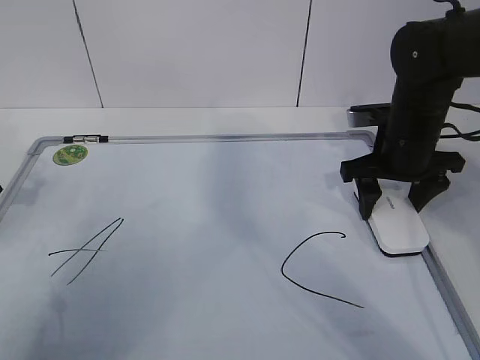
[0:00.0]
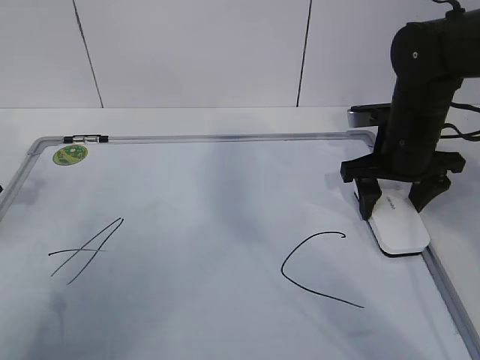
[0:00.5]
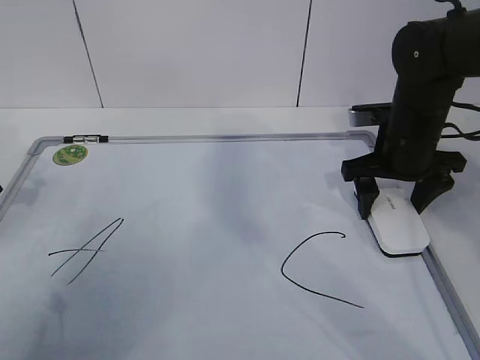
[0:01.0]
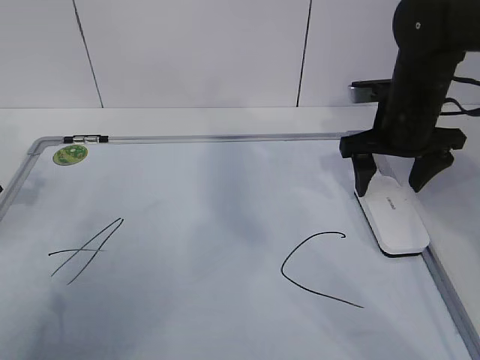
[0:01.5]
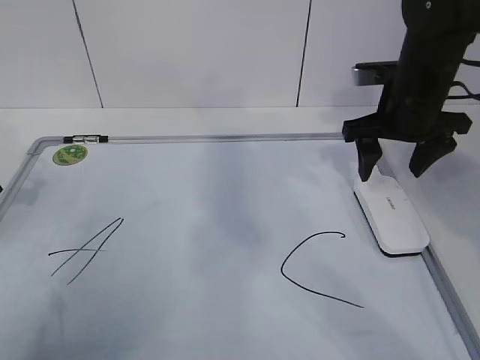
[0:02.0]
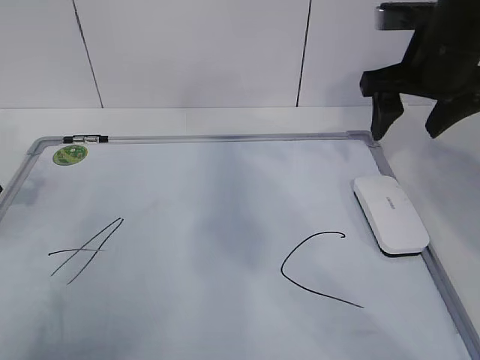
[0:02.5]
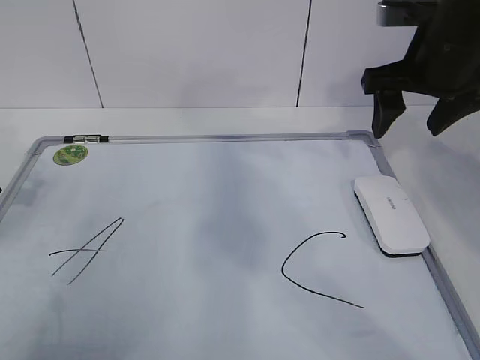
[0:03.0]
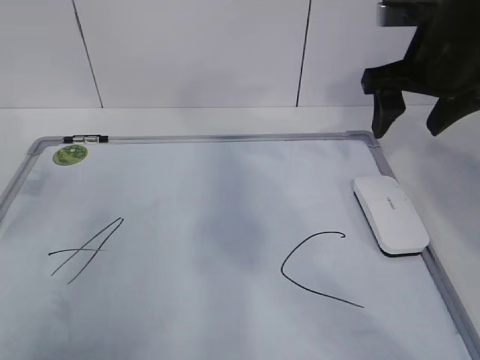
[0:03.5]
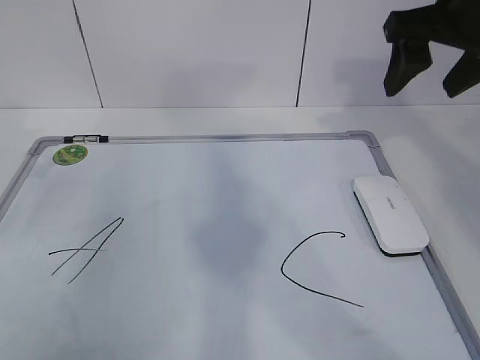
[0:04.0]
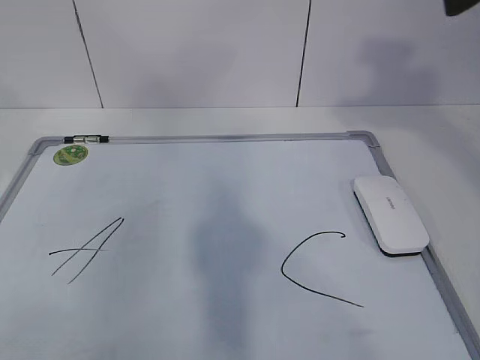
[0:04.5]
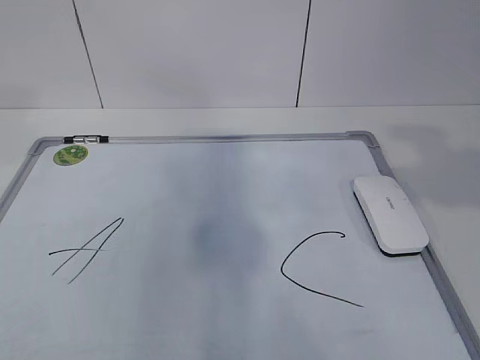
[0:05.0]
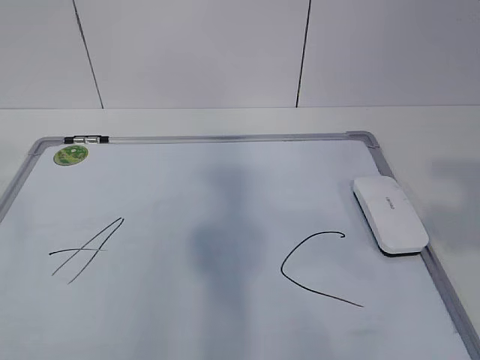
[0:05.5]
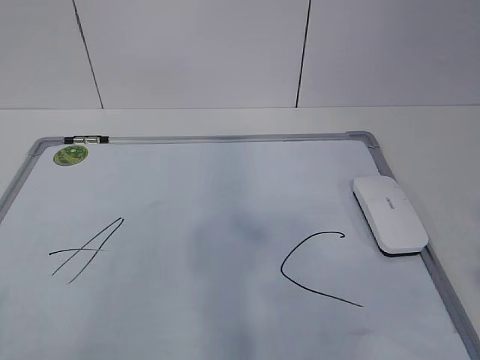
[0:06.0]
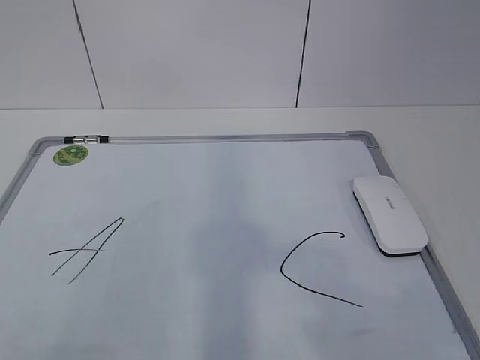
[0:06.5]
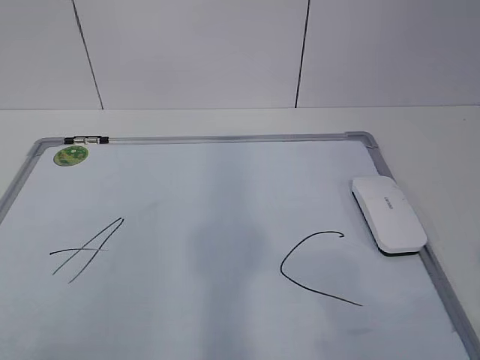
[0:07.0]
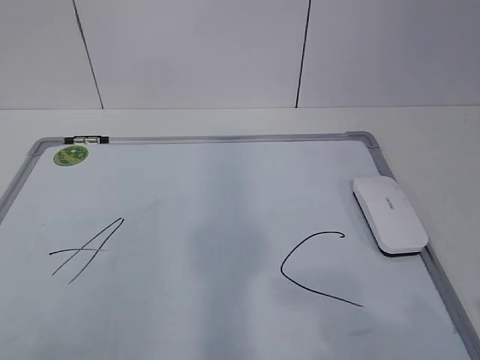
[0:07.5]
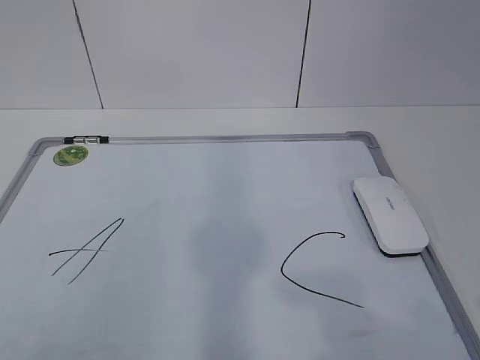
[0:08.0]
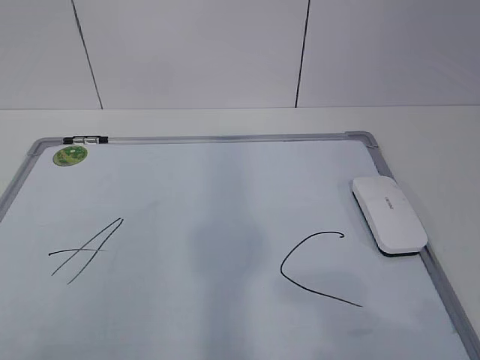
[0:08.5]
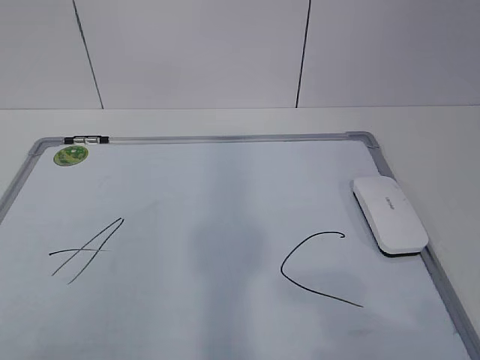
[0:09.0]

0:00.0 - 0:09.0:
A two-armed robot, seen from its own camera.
Task of the whole recording: pick up the eraser on the blackboard and erase the letter "B".
0:00.0 - 0:02.0: The right gripper opens its fingers.
0:02.0 - 0:04.5: The left gripper is displaced upward by some 15 cm, and opens its fingers; the right gripper moves upward and backward, some 25 cm.
0:04.5 - 0:07.0: The right gripper shifts some 30 cm backward and downward.

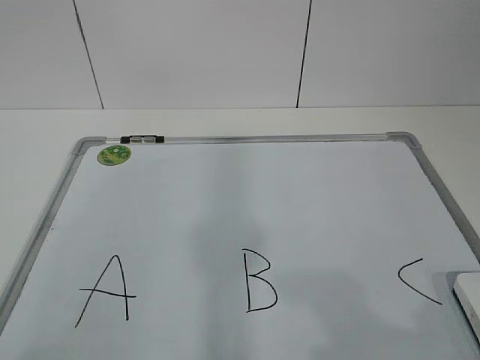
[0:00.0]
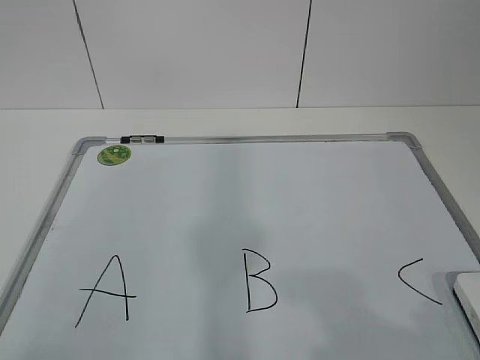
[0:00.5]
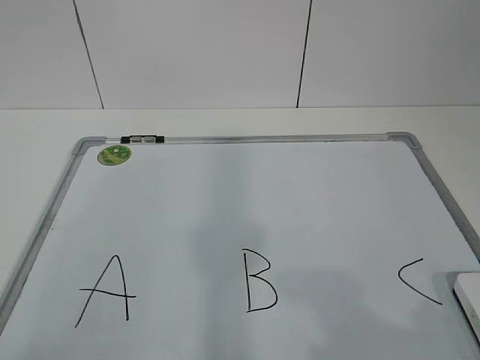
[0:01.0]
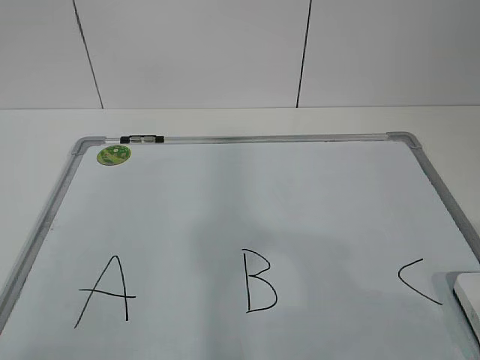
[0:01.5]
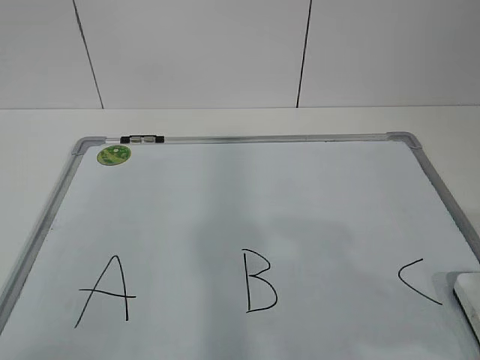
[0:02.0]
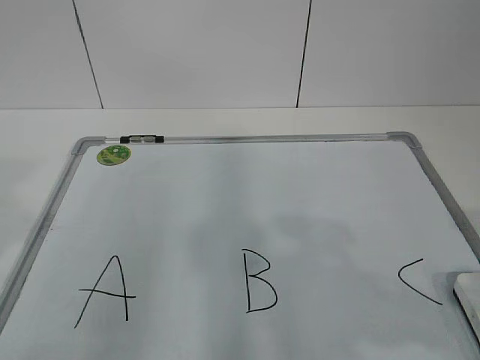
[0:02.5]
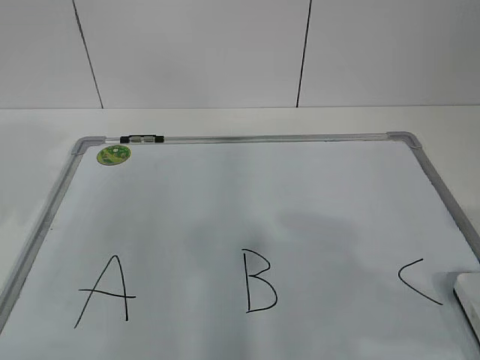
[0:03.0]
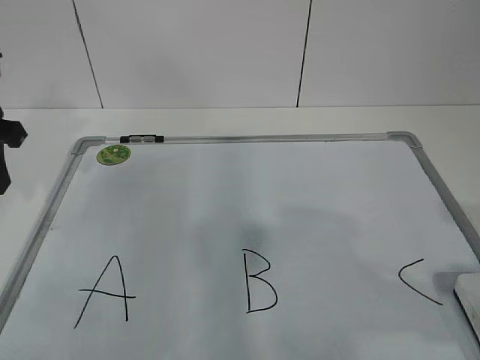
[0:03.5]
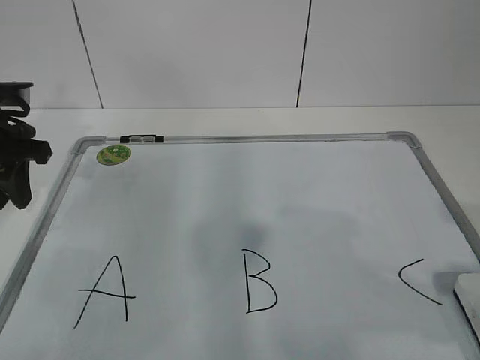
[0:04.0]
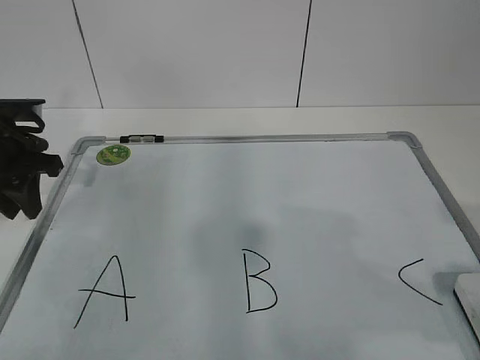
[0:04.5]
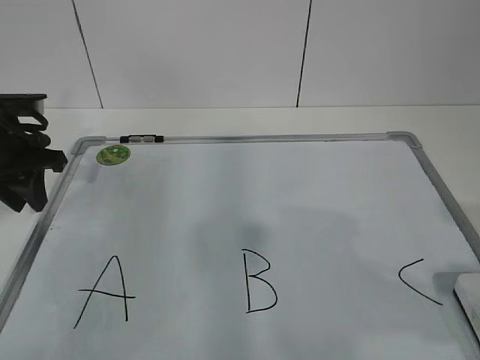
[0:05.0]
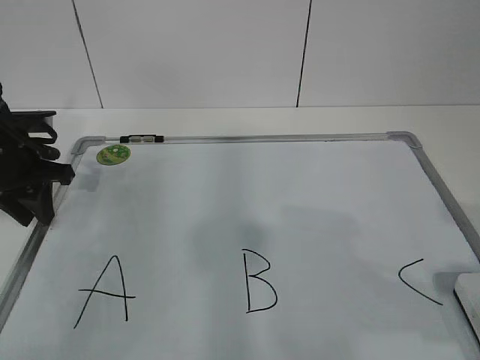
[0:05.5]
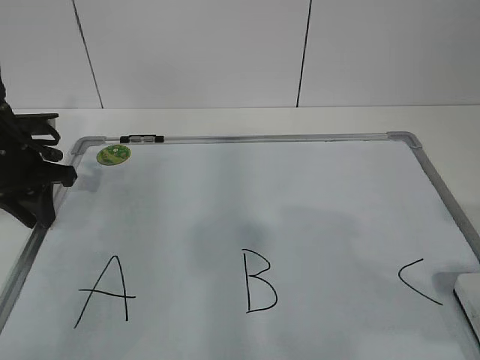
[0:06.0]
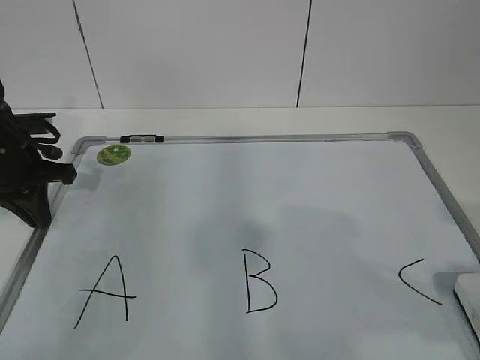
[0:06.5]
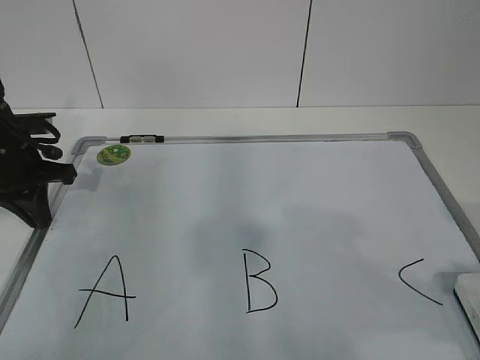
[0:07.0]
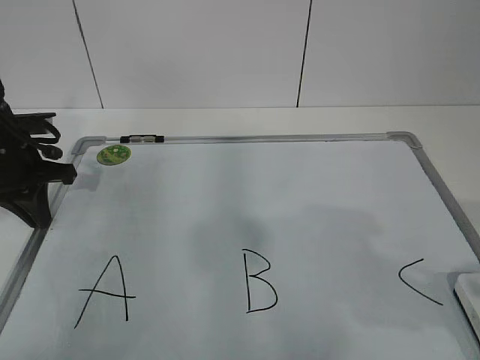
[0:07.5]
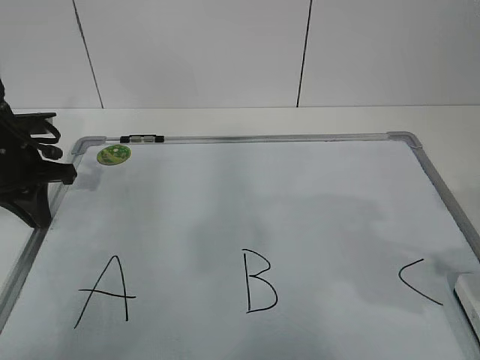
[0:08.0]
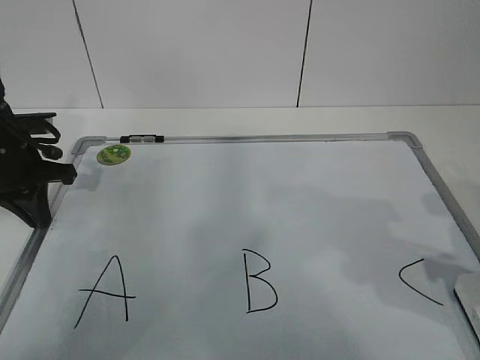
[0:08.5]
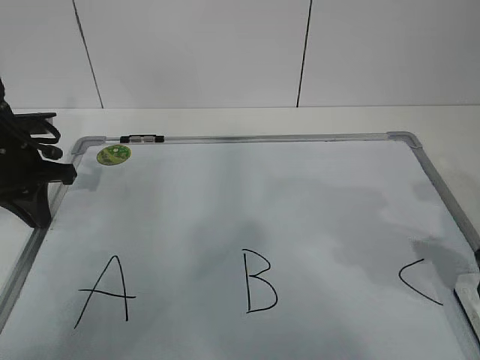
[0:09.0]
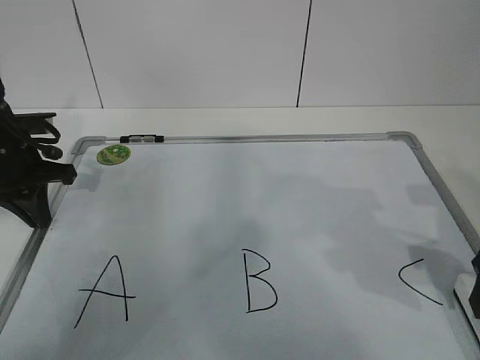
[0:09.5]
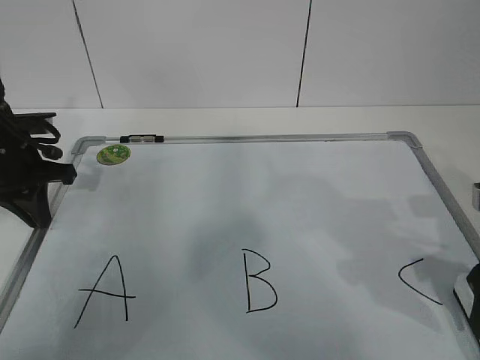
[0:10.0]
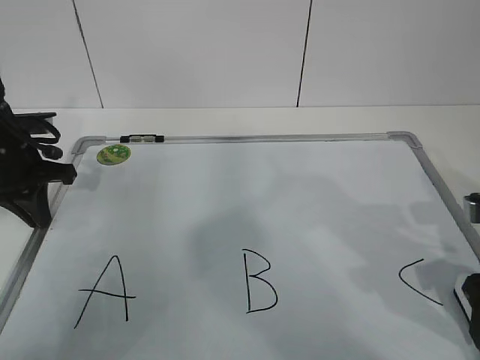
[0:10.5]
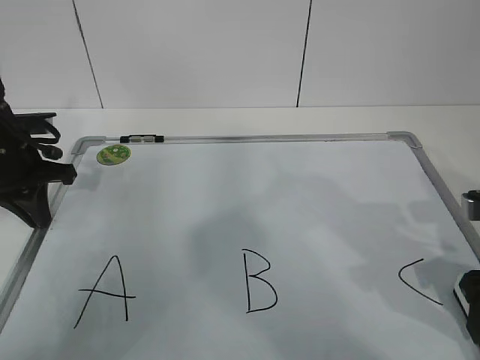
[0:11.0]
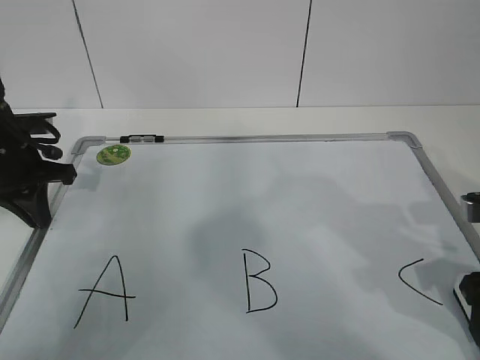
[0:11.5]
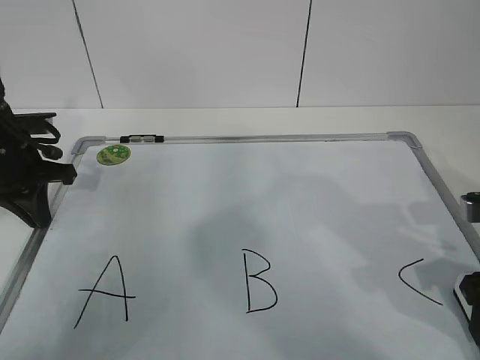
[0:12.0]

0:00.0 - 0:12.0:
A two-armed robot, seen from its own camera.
Task of the whole recording: pick up the eraser on the blackboard and erase the letter "B".
Step, 0:00.0 - 0:05.0: Hold the drawing board steady with your left hand.
0:02.0 - 0:04.0: The left gripper moves forward, roughly 35 cm.
0:04.0 - 0:06.0: The left gripper moves downward, approximately 5 cm.
0:06.0 - 0:08.0: The left gripper closes up.
0:08.0 - 0:10.0: The right gripper shifts some 10 cm forward and downward.
0:10.0 - 0:12.0: The right gripper closes up.

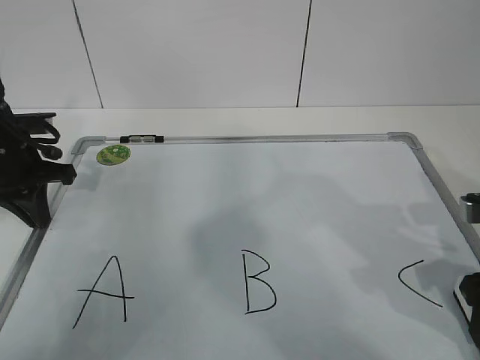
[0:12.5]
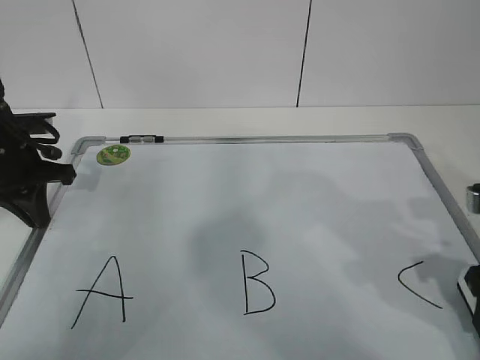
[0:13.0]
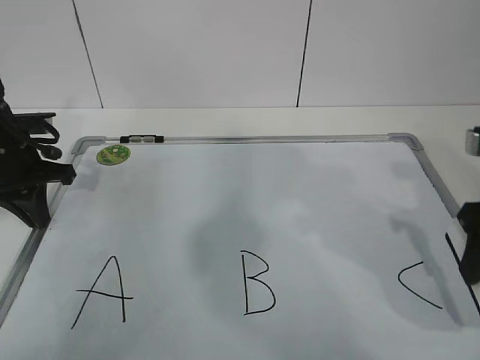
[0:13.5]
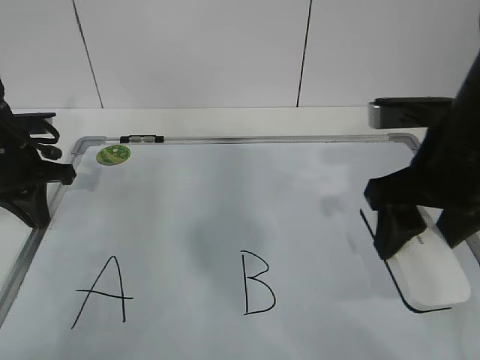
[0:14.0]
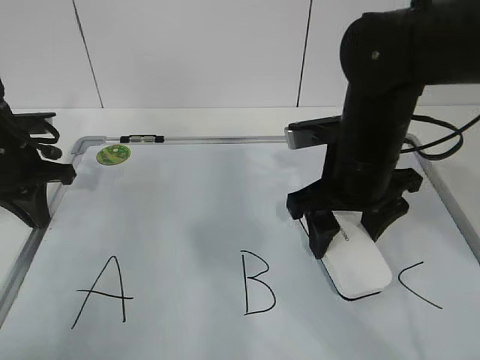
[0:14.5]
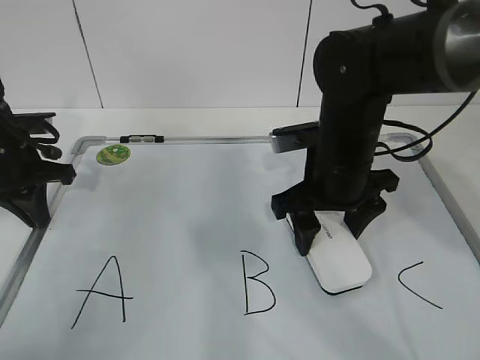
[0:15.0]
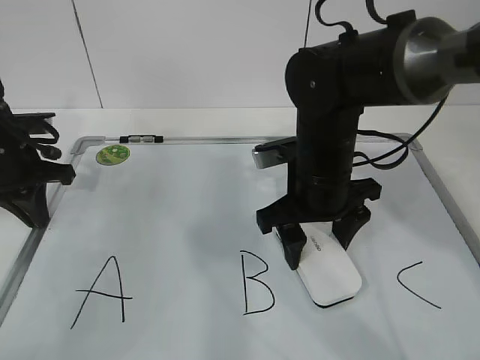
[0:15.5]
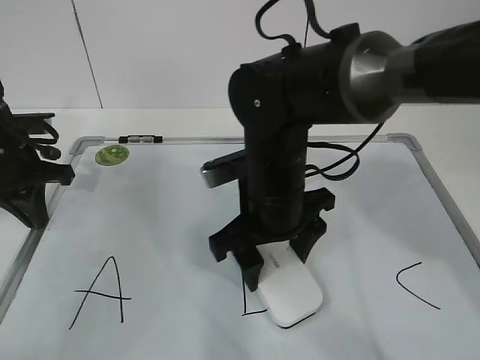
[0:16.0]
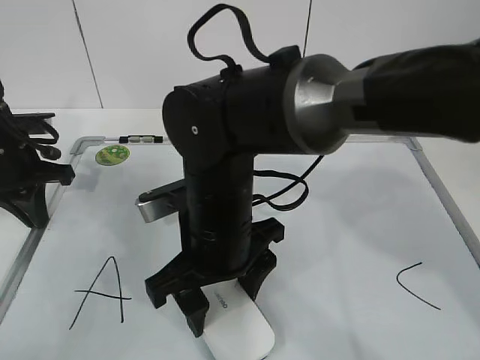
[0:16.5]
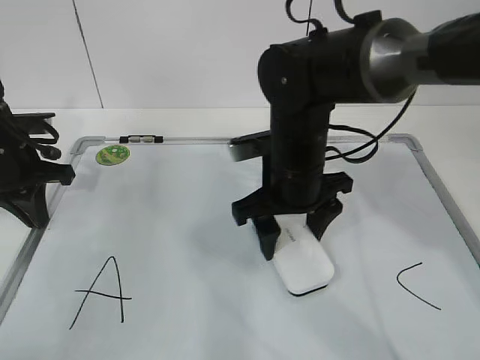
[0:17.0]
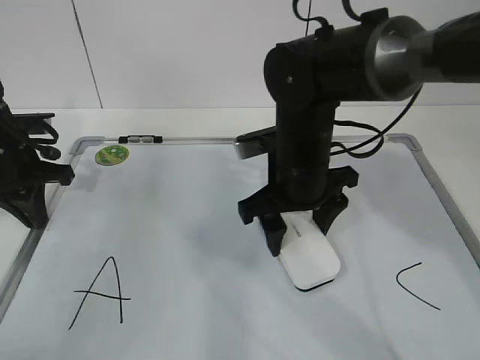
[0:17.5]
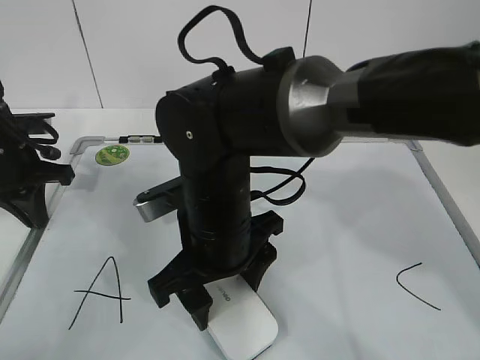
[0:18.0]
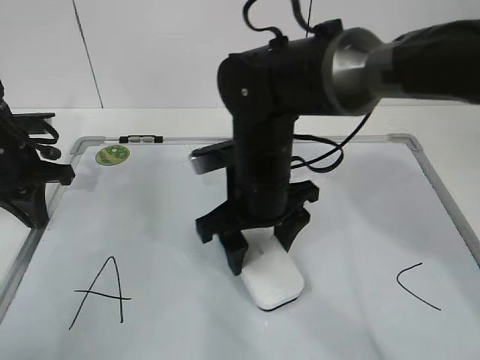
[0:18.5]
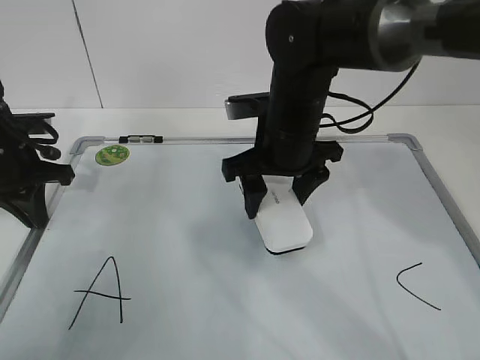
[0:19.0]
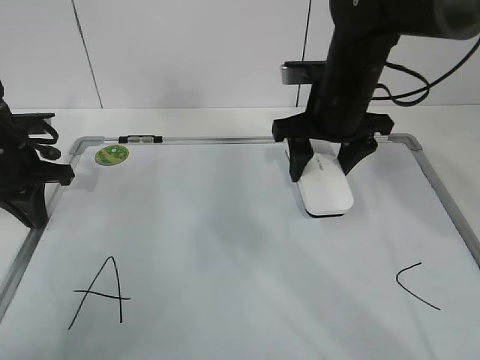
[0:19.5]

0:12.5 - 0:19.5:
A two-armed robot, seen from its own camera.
Task of the whole recording: pick up the eraser on the blackboard and erase the letter "B".
Step, 0:12.5 - 0:15.5: Erase the letter B with your right hand.
Step, 0:16.0 - 0:19.5: Put down the eraser with your right hand.
0:12.5 - 0:14.5: The right gripper travels to the left and forward by approximately 15 cm.
0:14.5 - 0:16.0: The right gripper heads to the left, covering approximately 10 cm.
0:16.0 - 0:17.5: The right gripper travels to the left and back again, about 5 cm each way.
0:17.5 - 0:19.5: The right gripper heads to the right, upward and forward, covering roughly 10 cm.
